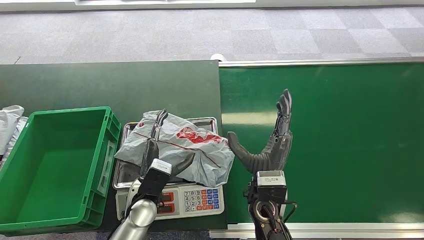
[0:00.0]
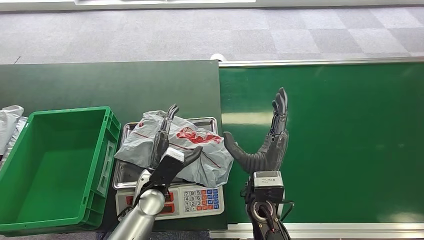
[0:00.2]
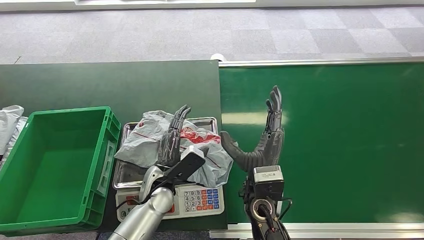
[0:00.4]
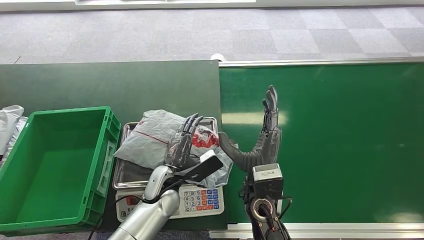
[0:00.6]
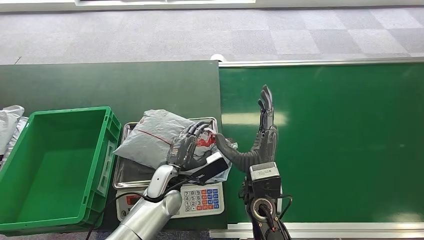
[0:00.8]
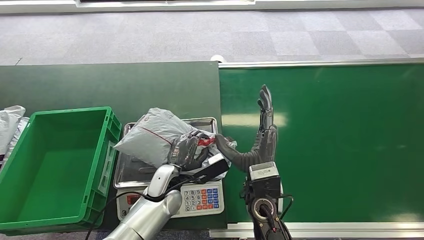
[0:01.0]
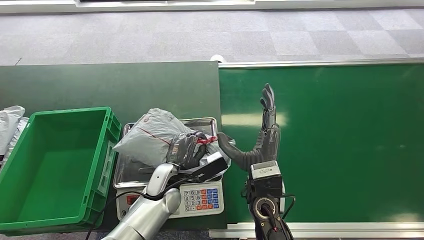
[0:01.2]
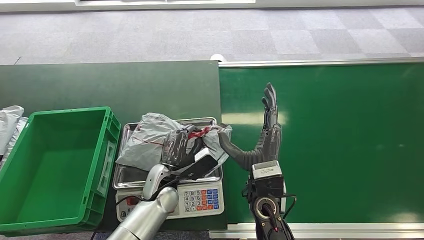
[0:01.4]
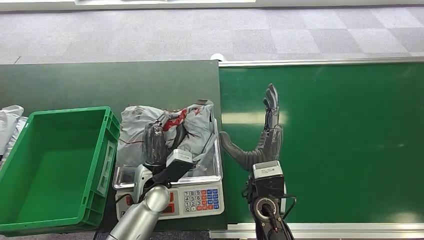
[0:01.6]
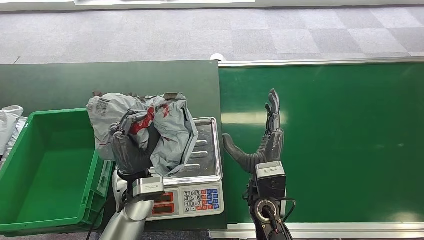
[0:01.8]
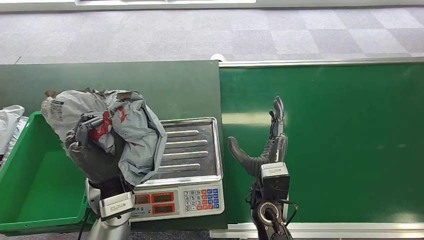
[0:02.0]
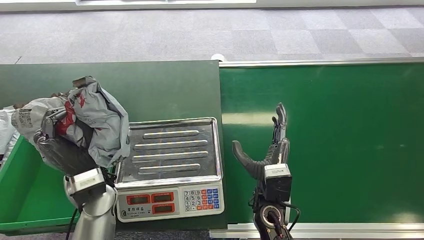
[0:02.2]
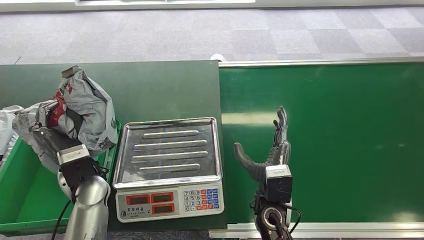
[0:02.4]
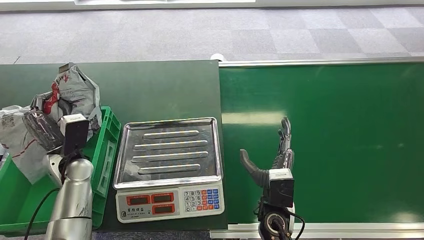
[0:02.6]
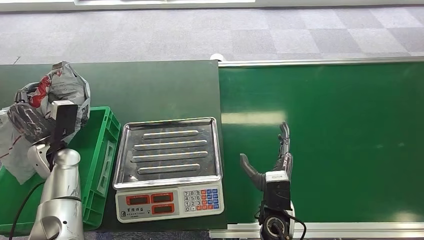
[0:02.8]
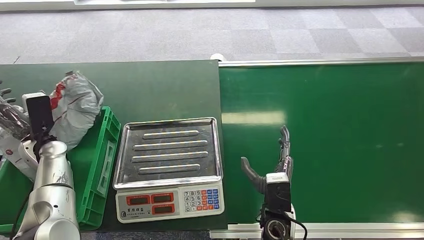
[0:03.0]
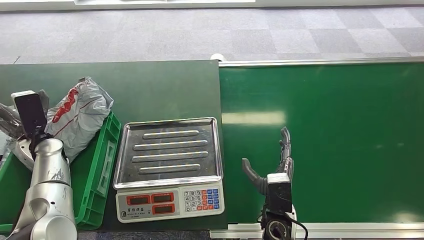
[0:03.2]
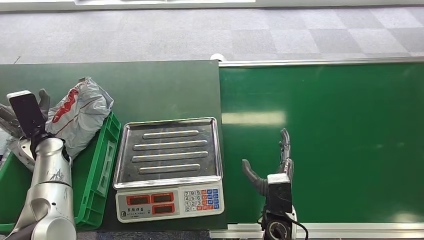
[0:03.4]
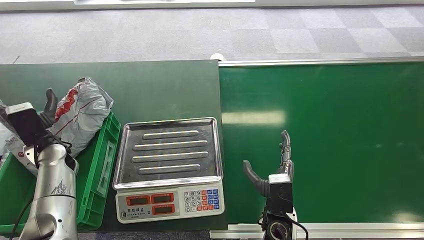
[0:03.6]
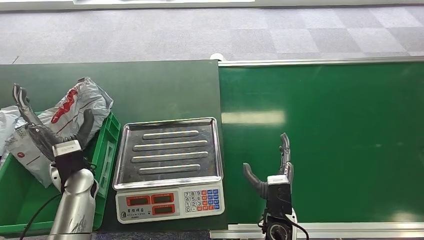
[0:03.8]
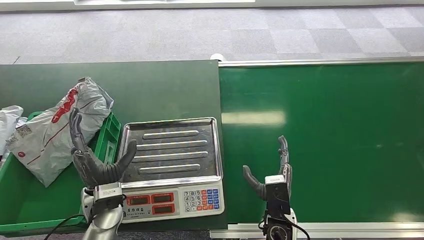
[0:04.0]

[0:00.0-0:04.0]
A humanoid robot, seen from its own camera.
Step, 0:00.8 to 0:02.0: Pick up the package from the inbound machine.
Step, 0:02.6 to 0:04.0: Place the package into the parcel locker.
0:00.0 to 0:01.4: The left hand ends up roughly 5 cm from where it was.
0:02.6 to 0:04.0: The left hand goes approximately 10 cm to the right and backward; the right hand changes place by approximately 5 cm.

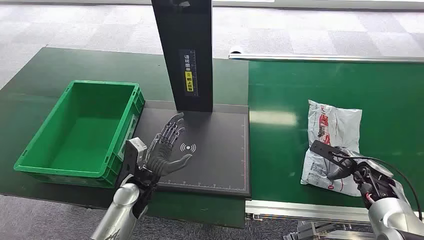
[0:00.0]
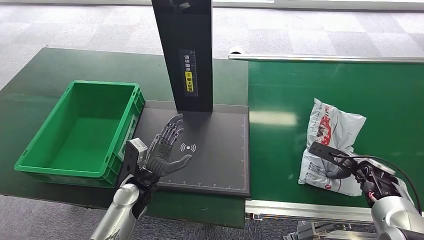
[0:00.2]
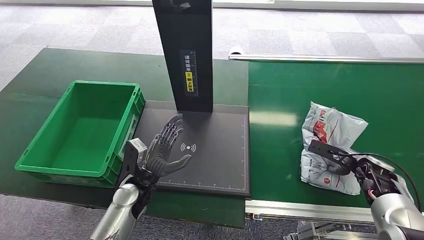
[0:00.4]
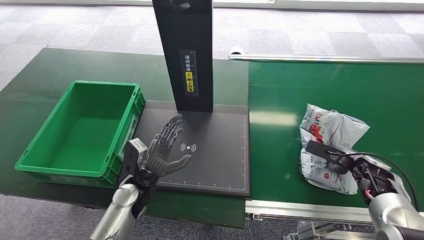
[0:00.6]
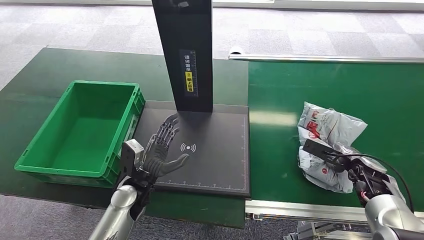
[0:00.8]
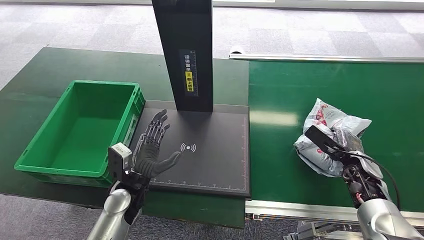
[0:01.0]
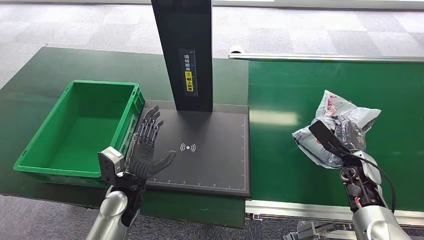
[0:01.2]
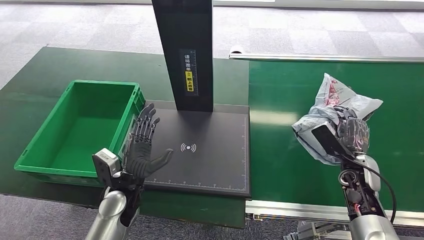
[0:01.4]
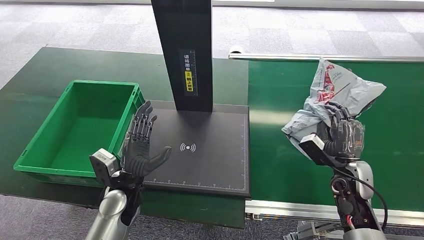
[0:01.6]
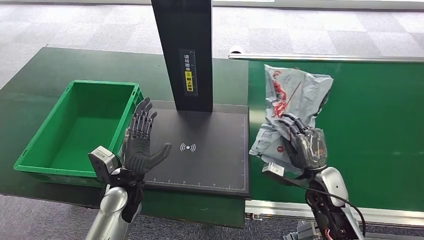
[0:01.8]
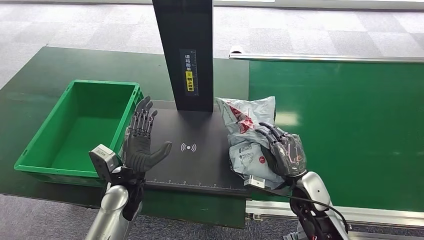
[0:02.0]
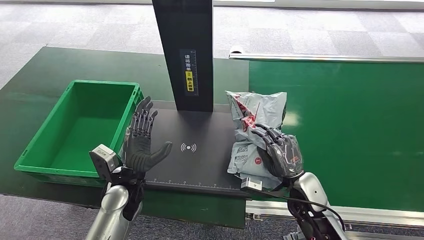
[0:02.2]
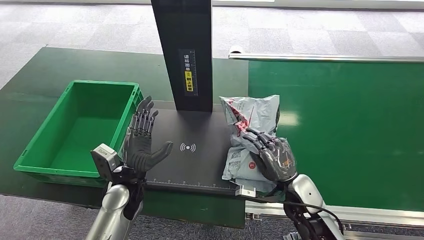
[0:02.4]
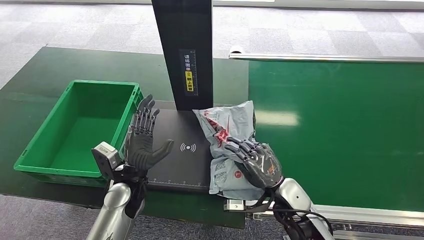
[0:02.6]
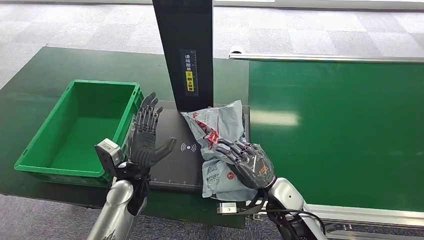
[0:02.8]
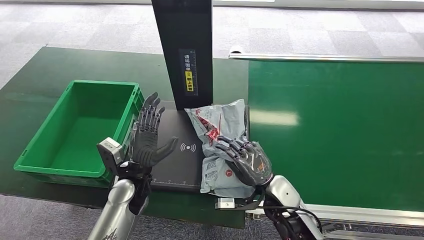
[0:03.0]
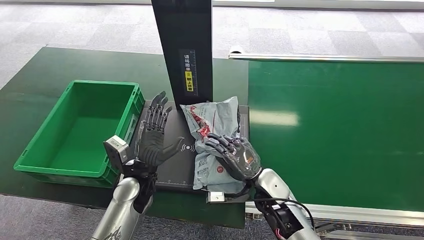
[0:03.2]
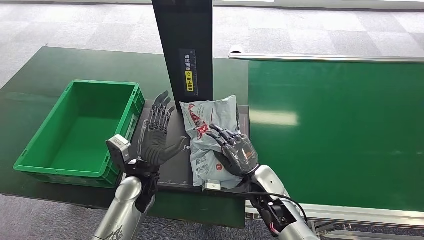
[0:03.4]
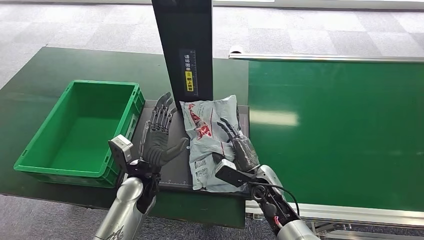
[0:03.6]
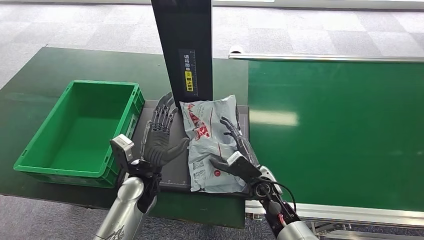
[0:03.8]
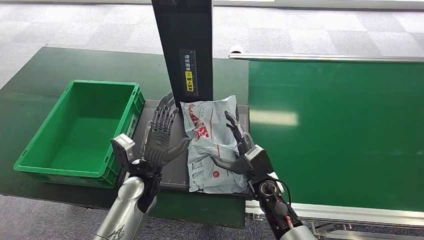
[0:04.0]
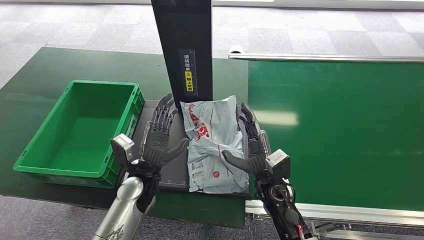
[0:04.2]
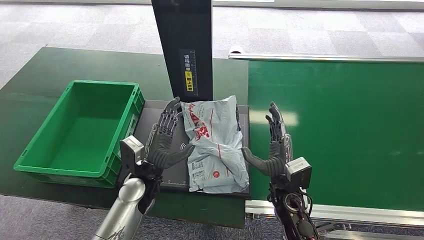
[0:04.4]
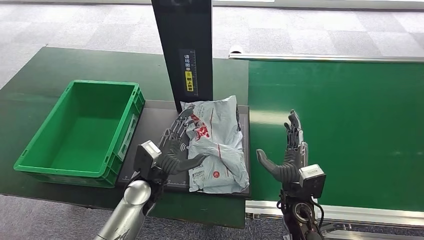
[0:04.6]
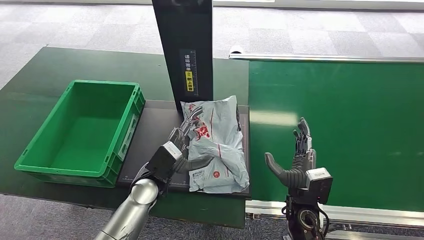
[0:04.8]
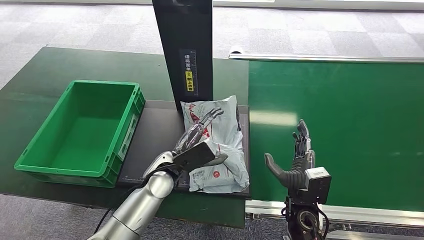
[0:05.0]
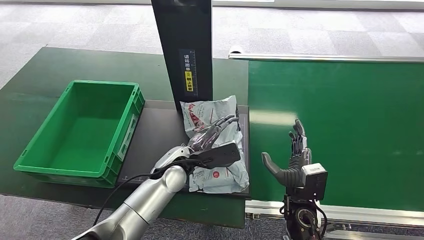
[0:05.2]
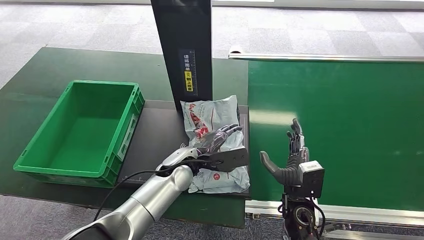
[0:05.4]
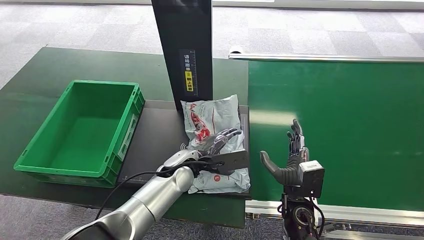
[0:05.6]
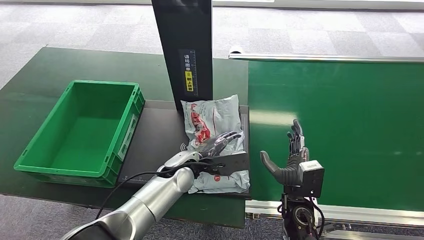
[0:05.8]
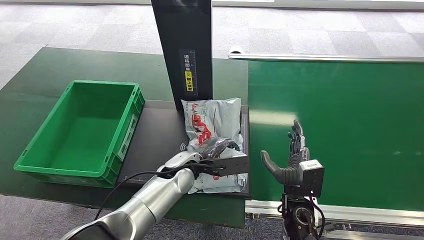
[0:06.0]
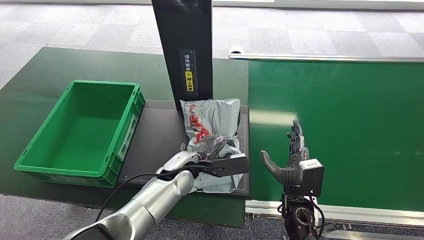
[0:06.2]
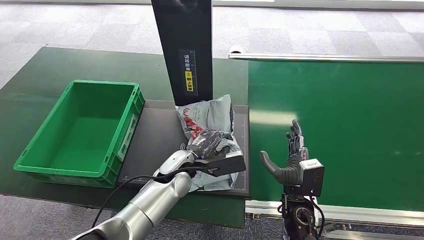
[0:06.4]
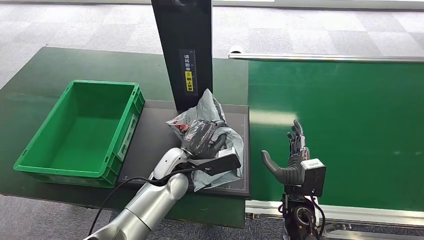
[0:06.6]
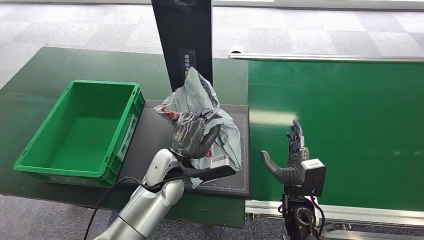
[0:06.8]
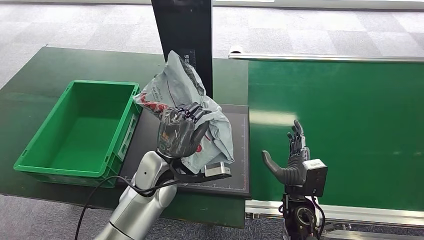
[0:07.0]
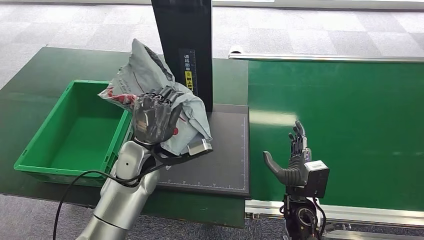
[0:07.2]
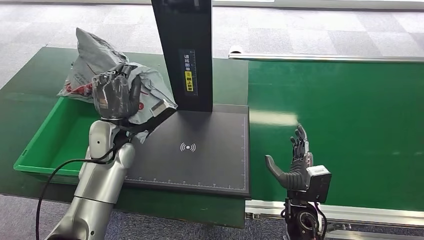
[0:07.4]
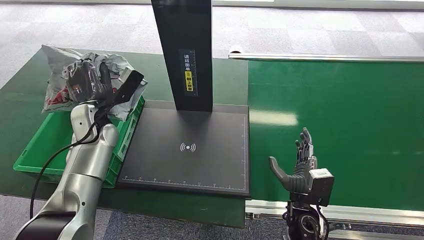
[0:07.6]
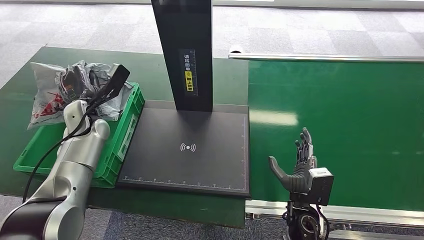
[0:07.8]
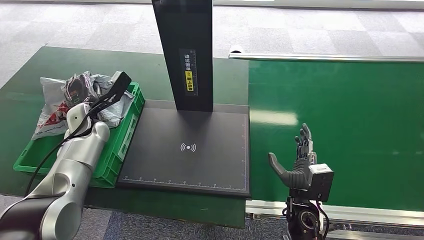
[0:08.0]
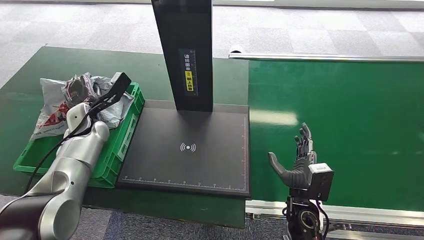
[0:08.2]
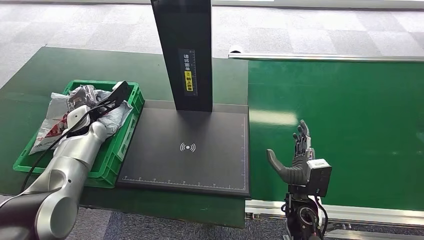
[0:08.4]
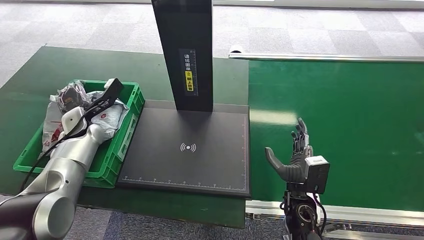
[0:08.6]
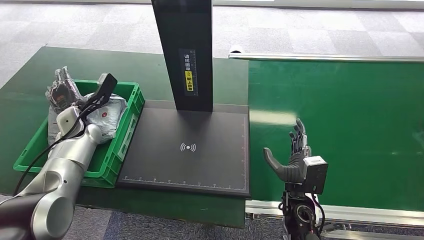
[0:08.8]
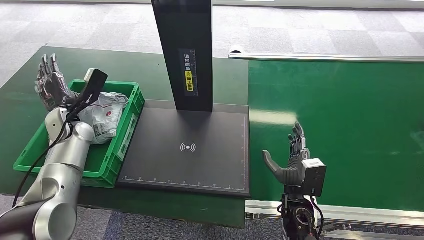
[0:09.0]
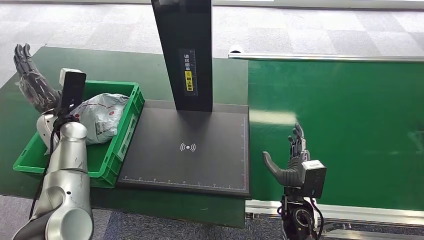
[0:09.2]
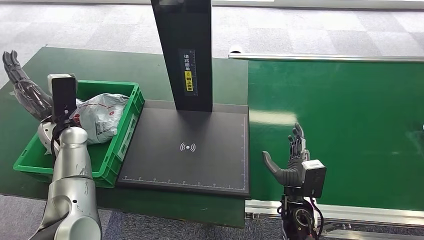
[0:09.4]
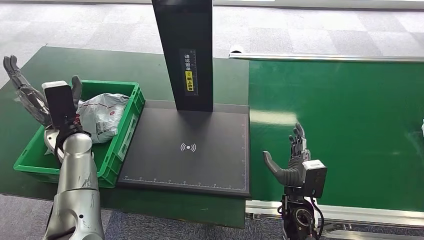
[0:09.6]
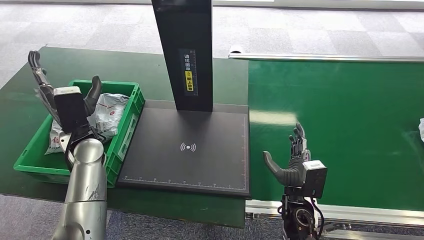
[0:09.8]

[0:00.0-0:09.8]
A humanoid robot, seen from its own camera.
Step, 0:00.0 to 0:01.4: Pick up the package from the conveyor belt.
Step, 0:01.6 to 0:05.4: Place the package onto the inbound machine.
Step, 0:05.8 to 0:07.4: Pick up the package from the inbound machine.
Step, 0:07.6 to 0:09.8: Place the package into the parcel locker.
0:01.4 to 0:02.8: The right hand heads to the left, covering about 20 cm.
0:04.2 to 0:05.6: Both hands move to the right, roughly 5 cm.
0:05.6 to 0:07.0: The left hand moves some 5 cm.
0:08.4 to 0:09.8: The left hand is displaced backward and to the right by about 10 cm.
